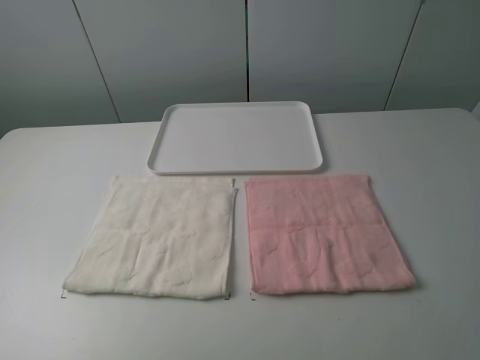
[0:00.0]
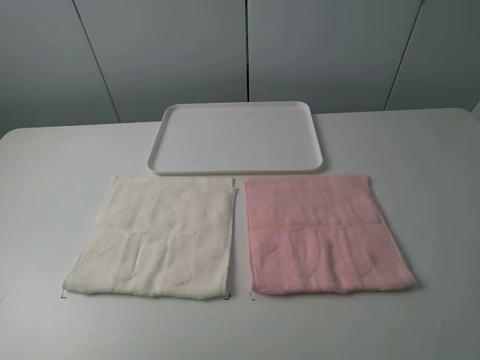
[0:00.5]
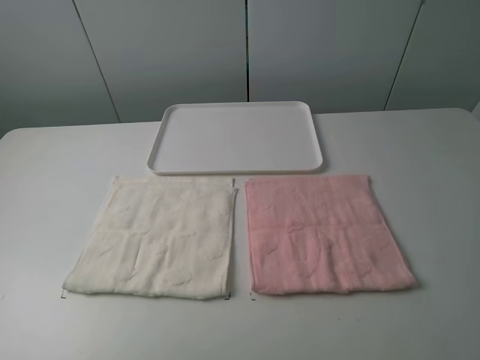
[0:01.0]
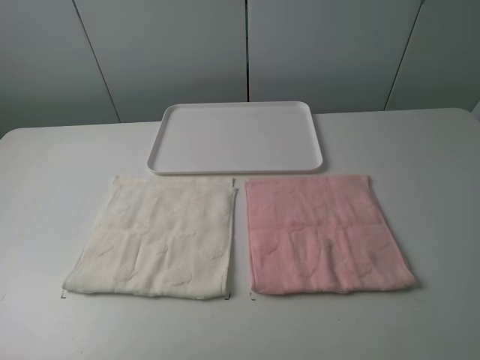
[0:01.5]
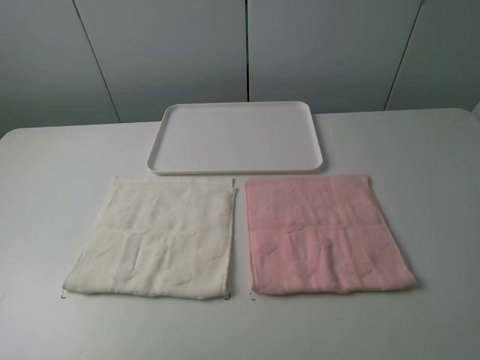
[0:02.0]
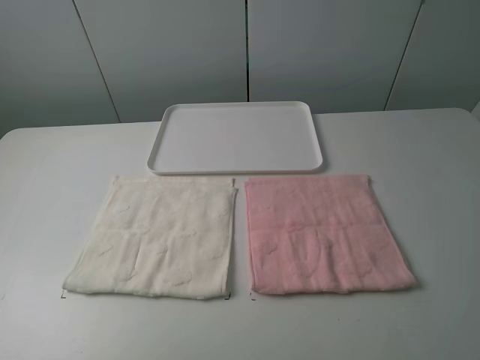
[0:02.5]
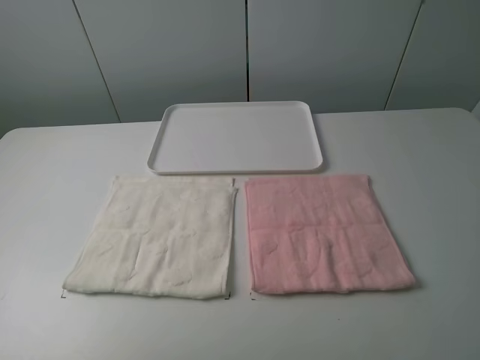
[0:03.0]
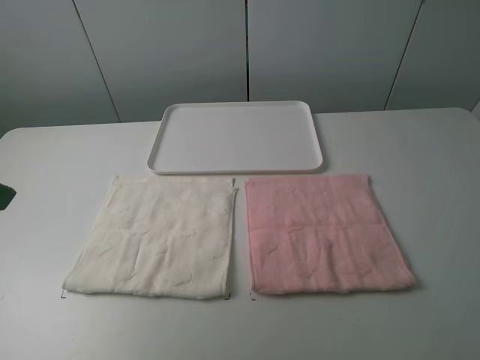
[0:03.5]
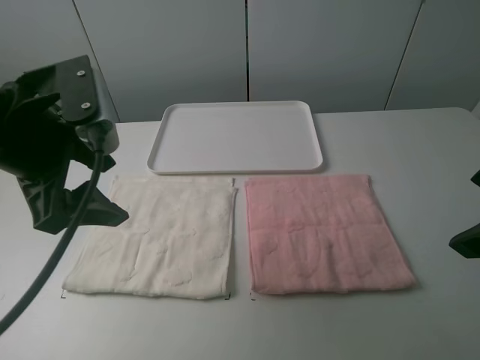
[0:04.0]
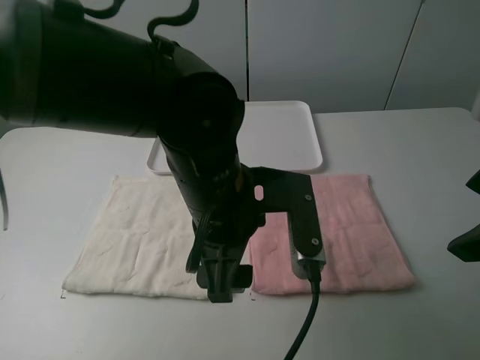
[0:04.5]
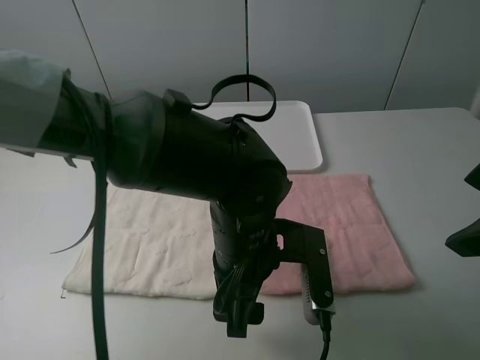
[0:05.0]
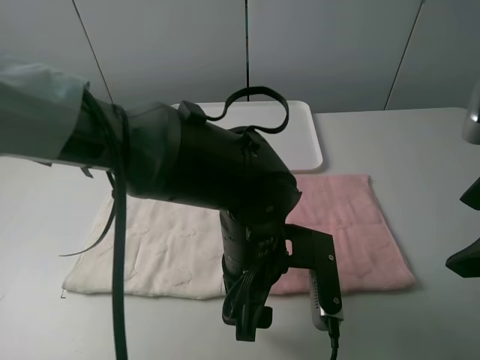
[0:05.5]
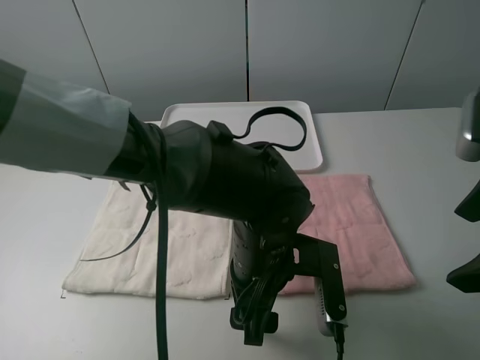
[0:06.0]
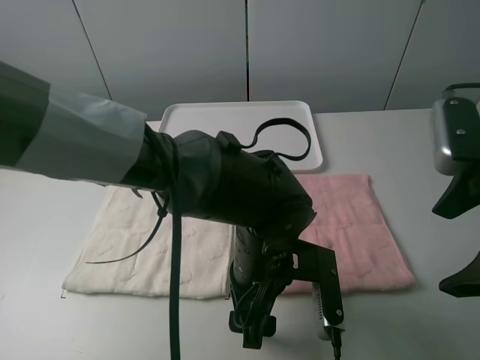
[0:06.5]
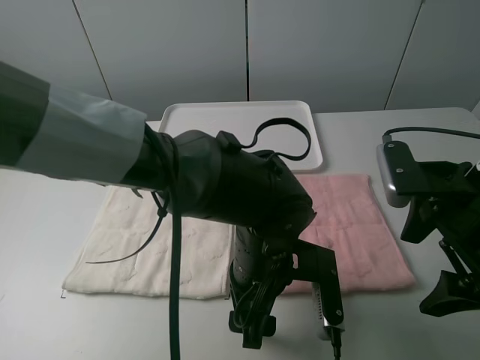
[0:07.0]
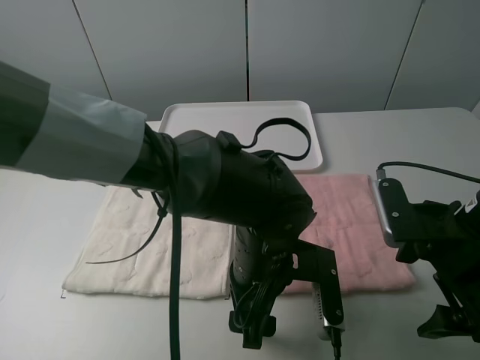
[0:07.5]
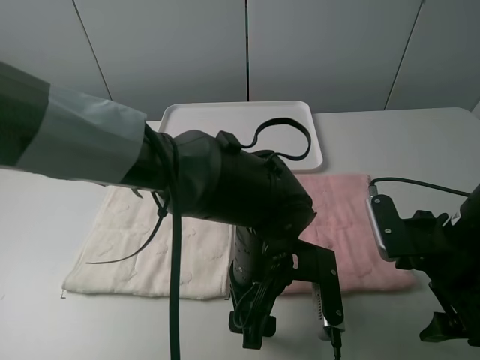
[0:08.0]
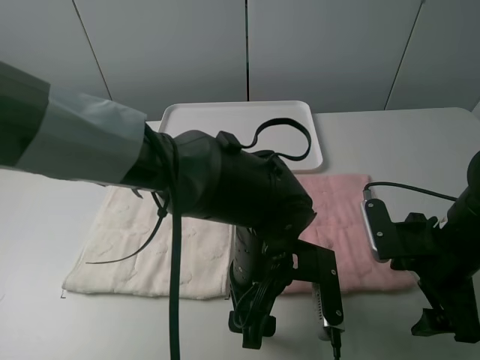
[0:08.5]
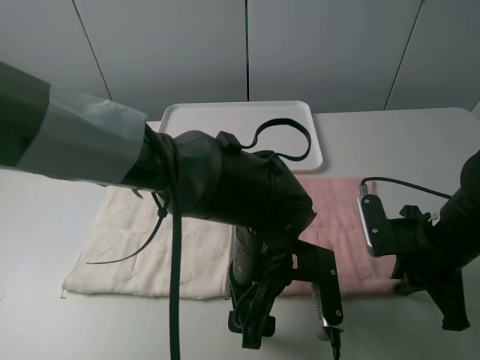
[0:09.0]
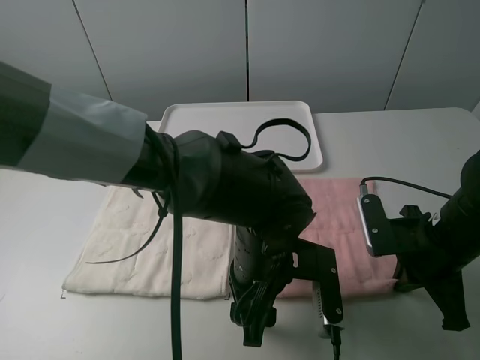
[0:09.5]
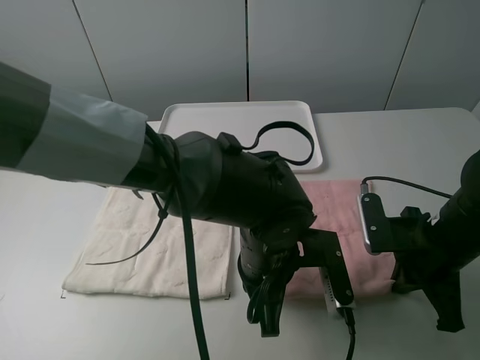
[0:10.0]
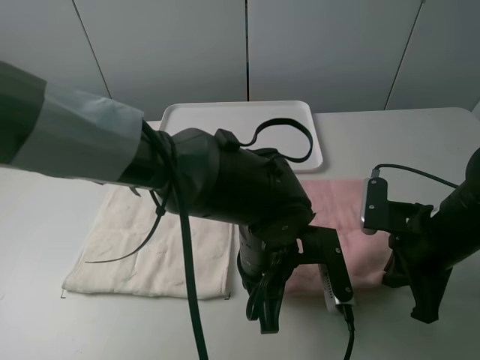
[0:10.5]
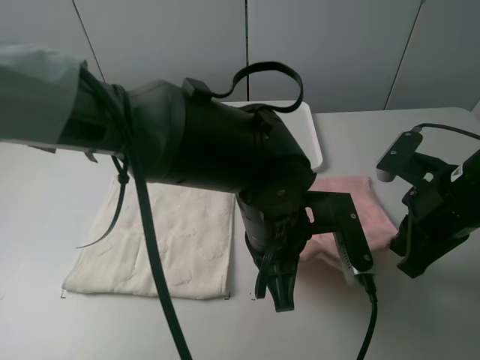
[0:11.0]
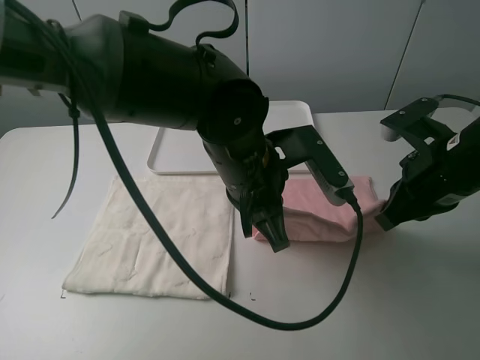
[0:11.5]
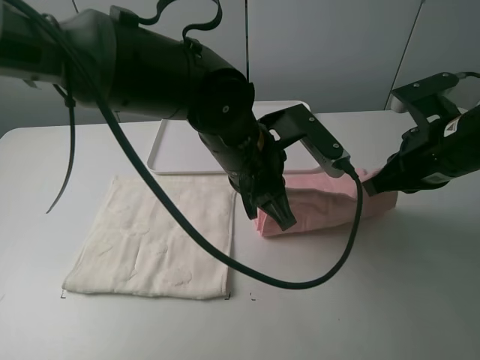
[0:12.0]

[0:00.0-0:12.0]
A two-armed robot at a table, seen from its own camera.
Task of the whole recording: fold one of the towels by two grippers and place it on the tray,then fold another towel by two grippers and place it on the folded towel.
Step, 0:00.0 to 0:10.0: Grasp the pink towel with the left gripper.
0:00.0 to 0:02.0: Both grippers stay put.
0:02.0 to 0:04.0: The right gripper shifts about 15 cm forward; the left gripper shifts some 25 cm forward and to the right.
0:04.0 to 0:06.0: The left gripper is displaced to the right and downward by about 25 cm.
0:06.0 to 0:08.0: The right gripper goes approximately 10 cm downward.
0:08.0 to 0:10.0: The right gripper closes its fingers. The left gripper closes its fingers.
0:10.0 to 0:12.0: The two grippers go approximately 10 cm upward and forward.

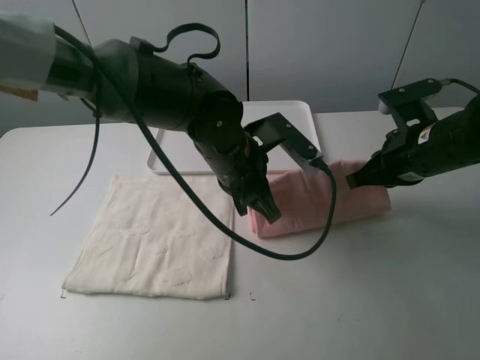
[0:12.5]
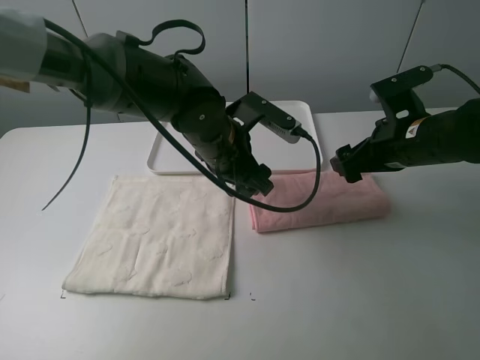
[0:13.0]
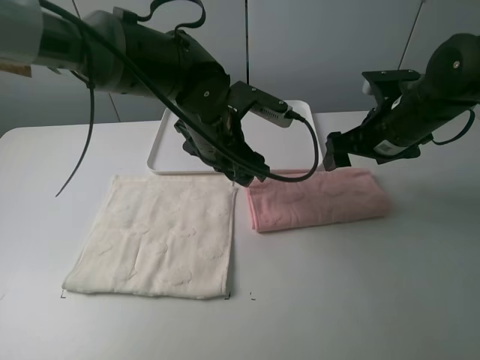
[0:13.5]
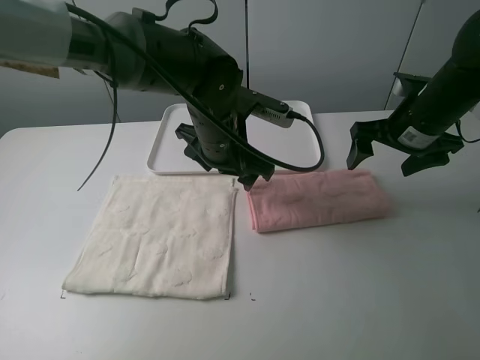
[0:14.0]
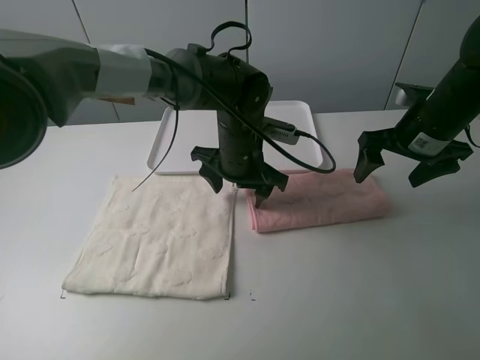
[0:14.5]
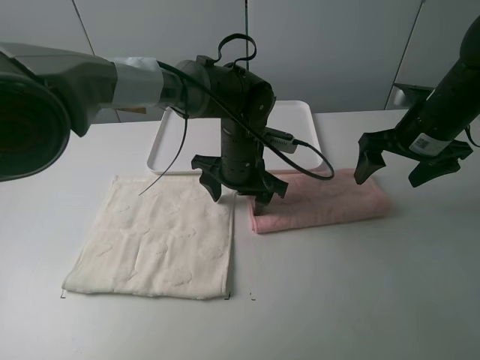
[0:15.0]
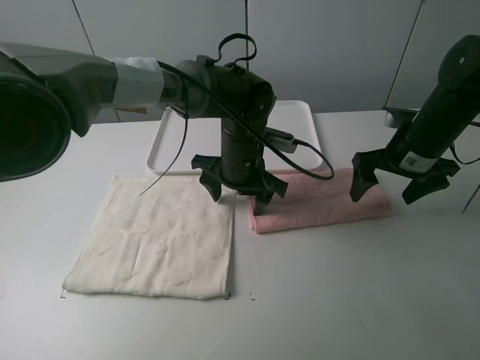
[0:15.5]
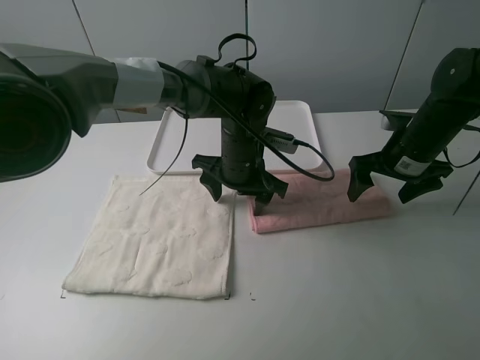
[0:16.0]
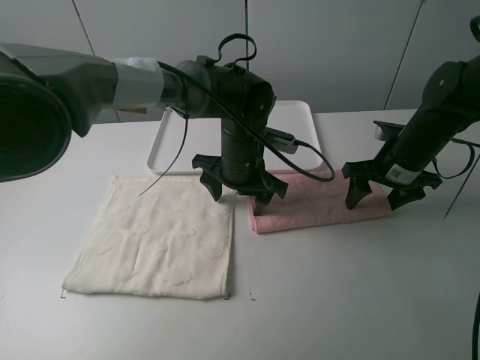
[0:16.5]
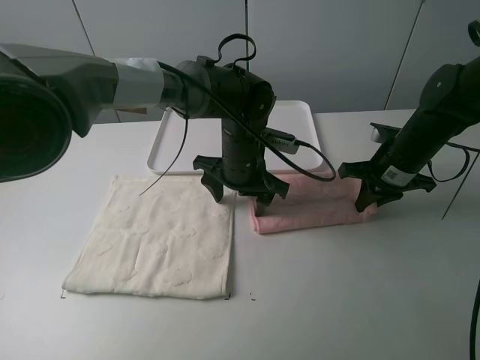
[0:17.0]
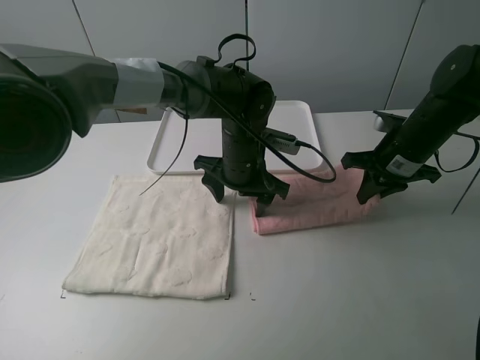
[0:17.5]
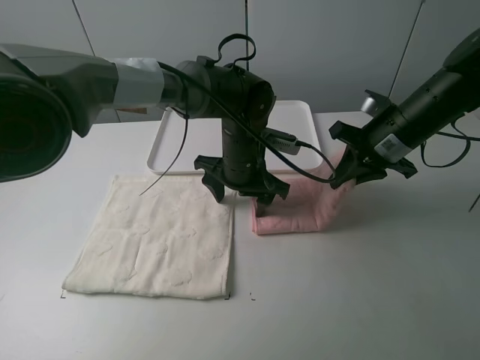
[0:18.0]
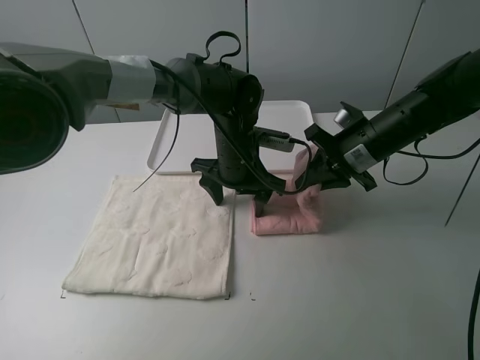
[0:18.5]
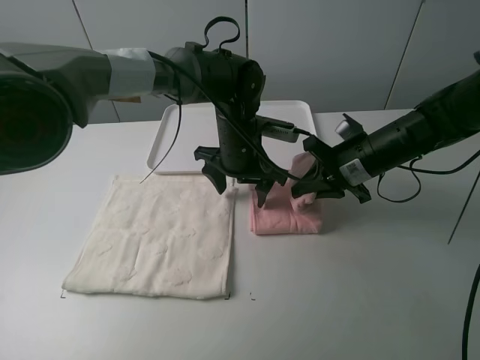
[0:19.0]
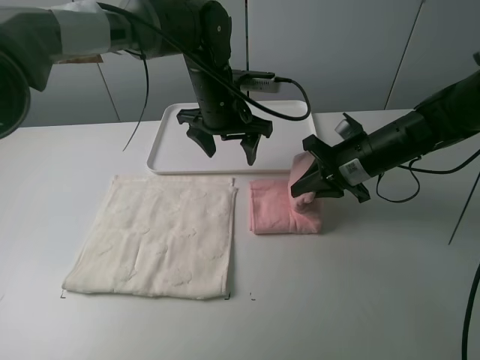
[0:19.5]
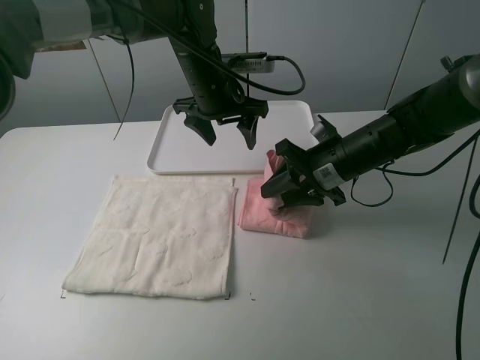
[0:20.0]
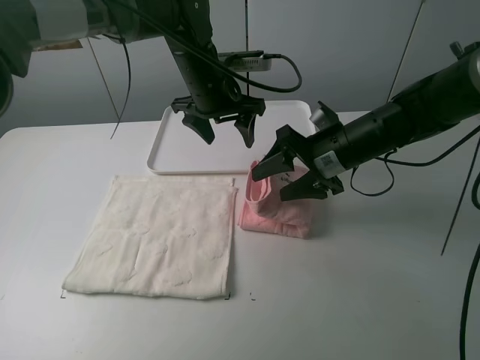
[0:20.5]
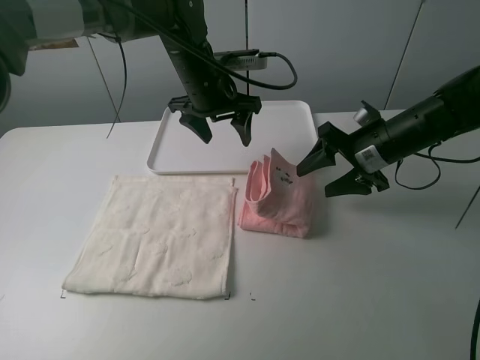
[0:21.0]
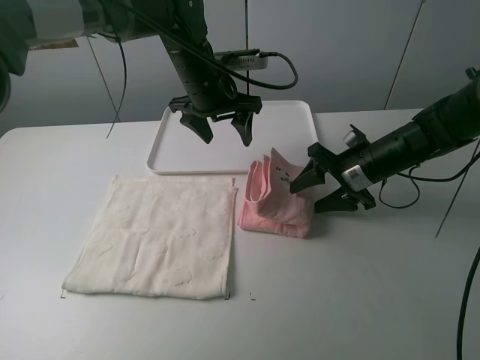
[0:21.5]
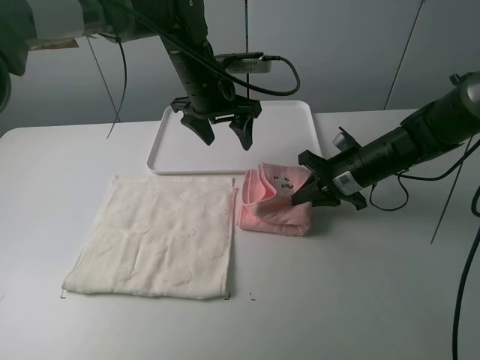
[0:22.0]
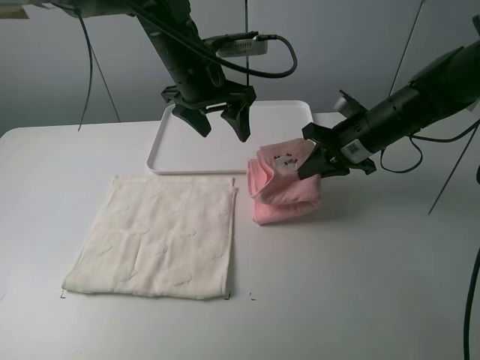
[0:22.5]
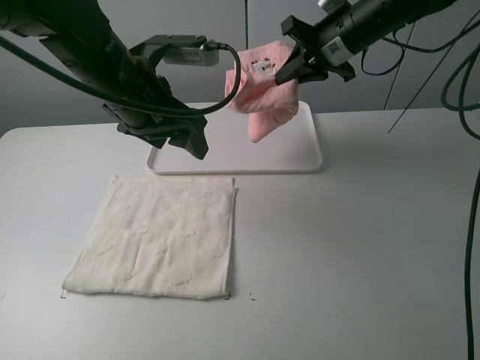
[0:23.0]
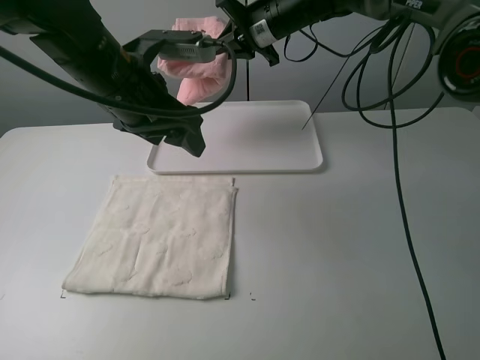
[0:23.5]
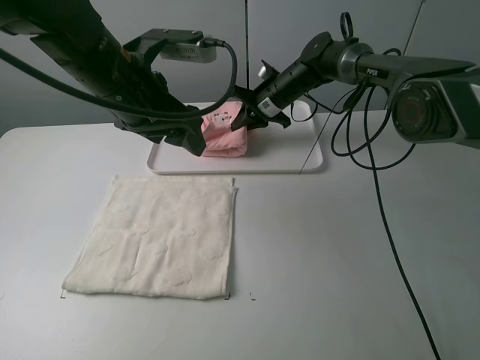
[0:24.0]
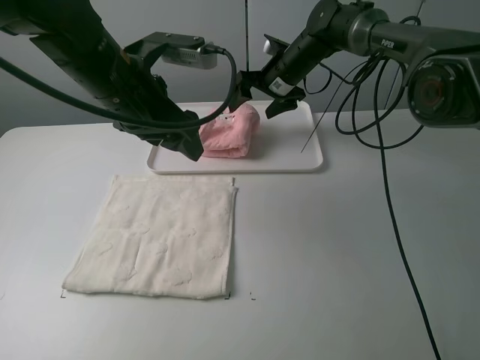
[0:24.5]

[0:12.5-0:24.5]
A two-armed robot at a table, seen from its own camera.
Task of the whole recording: fold one of the towels by two grippers and place it on the tray,then fold another towel by two grippers and place it on the folded towel.
Step, 0:13.5 to 0:15.0: Press the pink towel with the left gripper.
Step, 0:15.5 to 0:17.0: Grasp the pink towel with the right gripper.
Step, 0:17.5 to 0:20.5: Fold the pink towel from right to left with right gripper.
Step, 0:21.0 to 0:22.0: Grasp the pink towel with the right gripper.
0:12.5 to 0:14.5: Both grippers travel together forward, roughly 5 cm. The left gripper opens up, while the right gripper opens up.
0:14.5 to 0:16.5: The right gripper travels downward by some 5 cm.
0:16.5 to 0:18.5: The right gripper goes roughly 5 cm to the left, and closes.
0:18.5 to 0:20.5: The left gripper moves upward and forward, some 10 cm. Meanwhile the right gripper opens its fingers.
0:20.5 to 0:22.5: The right gripper shifts by about 5 cm, and closes. The left gripper changes place by roughly 5 cm.
0:22.5 to 0:24.5: The left gripper is displaced backward and to the left by approximately 10 cm, while the right gripper travels forward and to the left by roughly 20 cm, and opens.

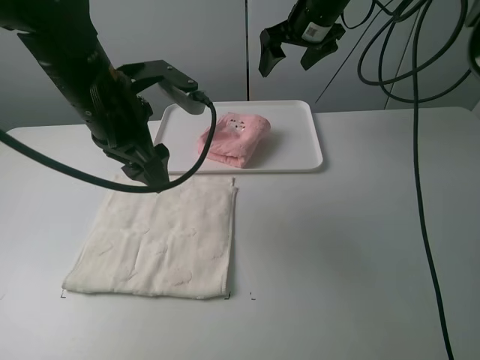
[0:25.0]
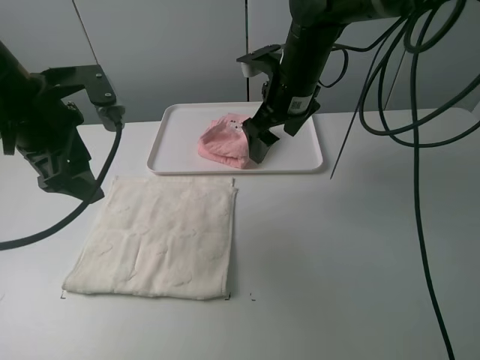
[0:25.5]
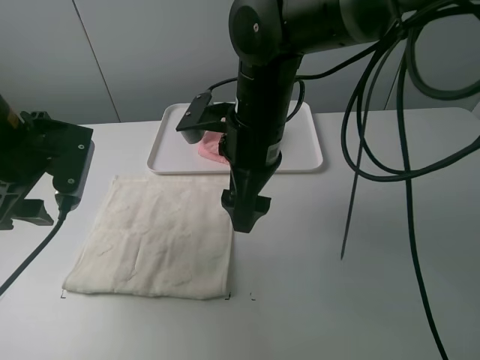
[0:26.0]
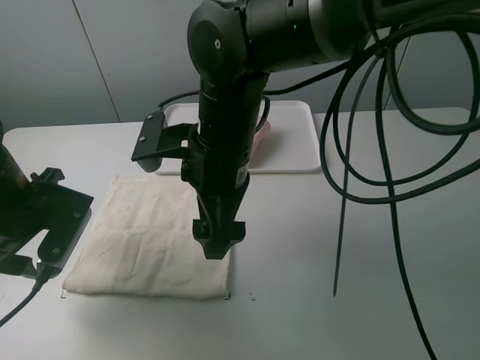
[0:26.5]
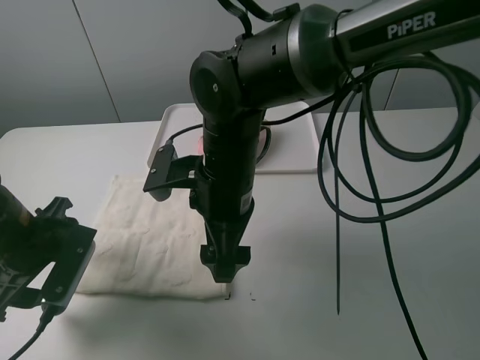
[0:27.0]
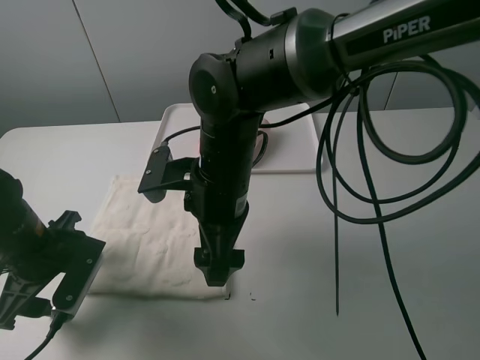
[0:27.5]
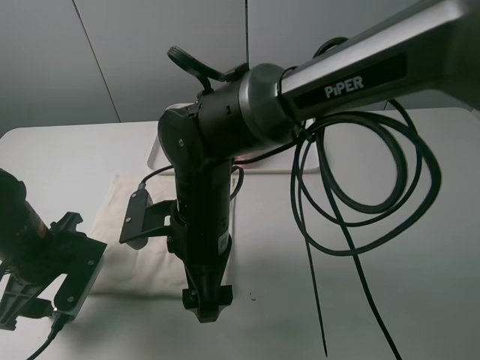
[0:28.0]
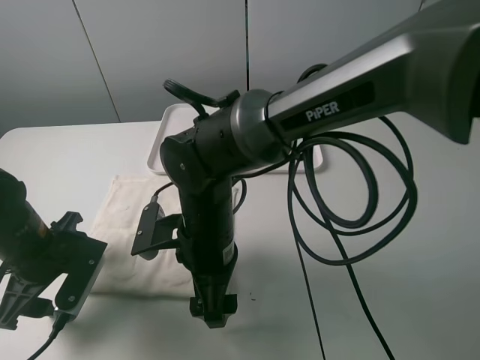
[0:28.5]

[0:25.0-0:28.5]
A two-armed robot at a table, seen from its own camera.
Task of the whole recording: fold one of the towels by two grippers and place it on the tray,then fold another towel by two grippers and place it on the folded towel.
0:25.0 to 0:27.0: The left gripper shifts some 20 cm downward, to the left and backward. The right gripper goes about 30 cm backward and to the left.
0:27.0 to 0:28.5: The right gripper shifts approximately 5 cm downward.
